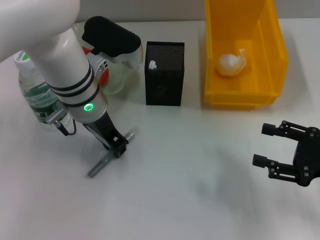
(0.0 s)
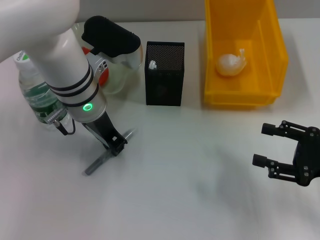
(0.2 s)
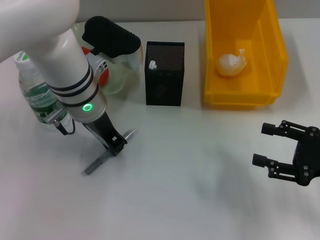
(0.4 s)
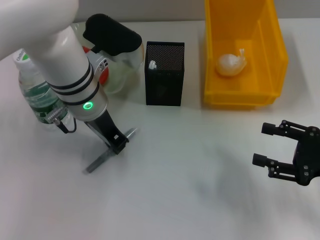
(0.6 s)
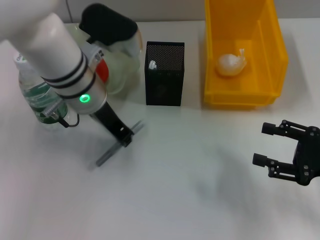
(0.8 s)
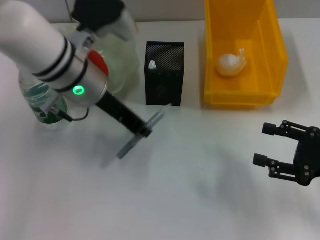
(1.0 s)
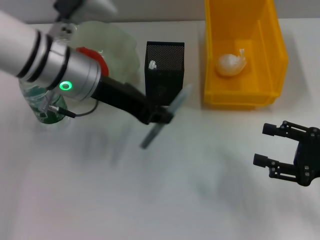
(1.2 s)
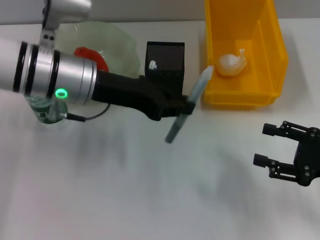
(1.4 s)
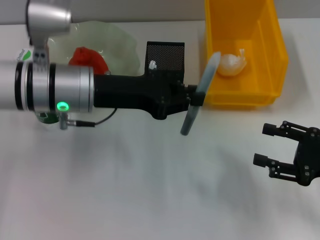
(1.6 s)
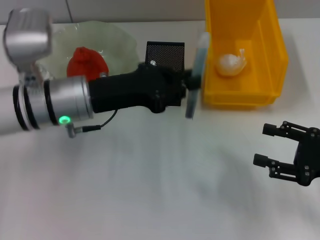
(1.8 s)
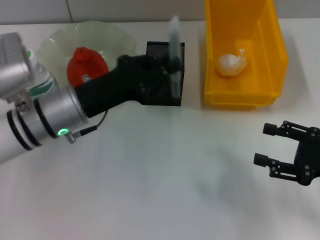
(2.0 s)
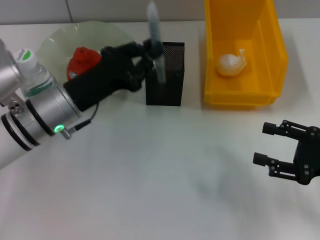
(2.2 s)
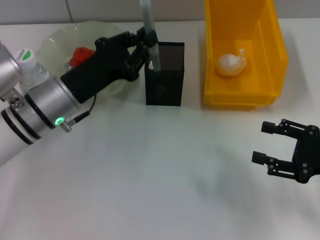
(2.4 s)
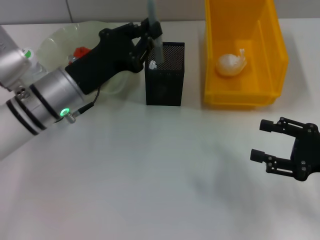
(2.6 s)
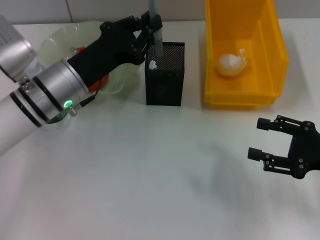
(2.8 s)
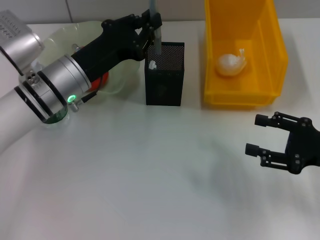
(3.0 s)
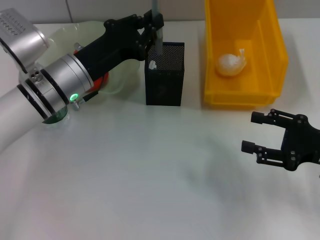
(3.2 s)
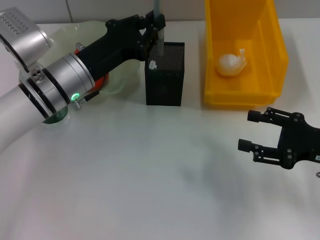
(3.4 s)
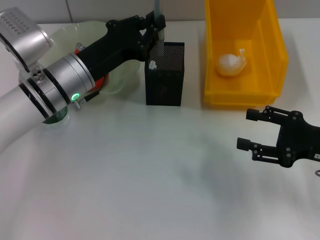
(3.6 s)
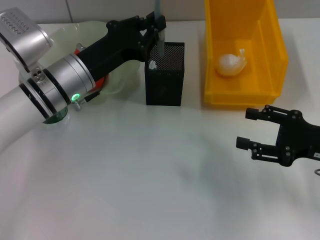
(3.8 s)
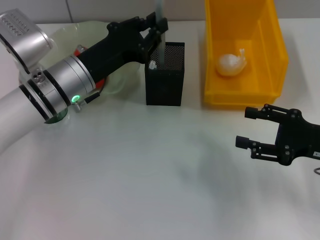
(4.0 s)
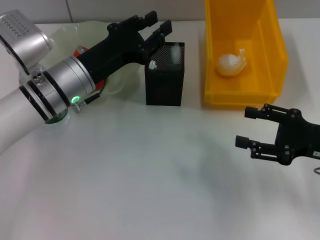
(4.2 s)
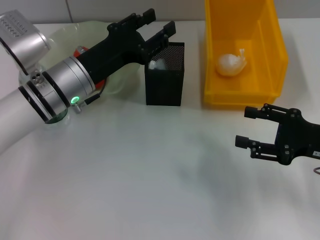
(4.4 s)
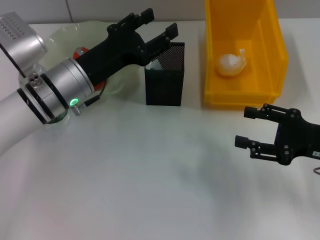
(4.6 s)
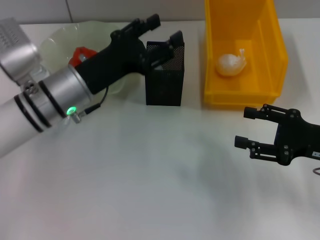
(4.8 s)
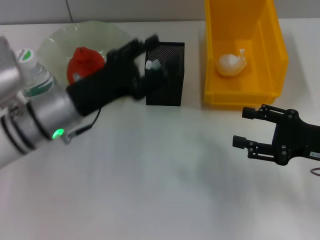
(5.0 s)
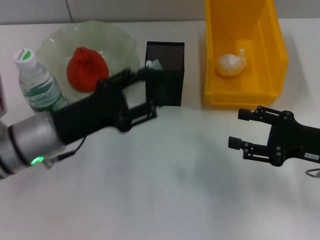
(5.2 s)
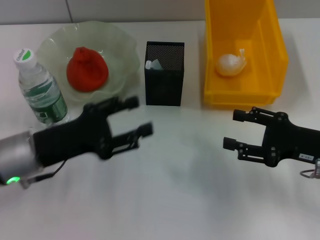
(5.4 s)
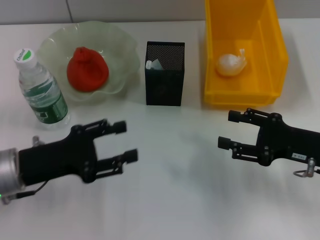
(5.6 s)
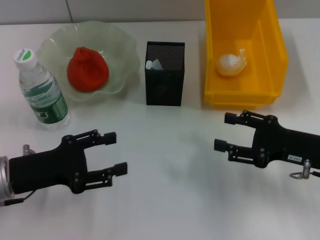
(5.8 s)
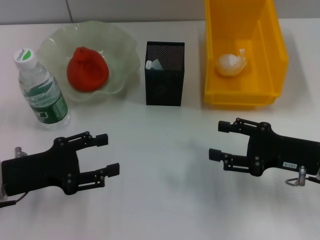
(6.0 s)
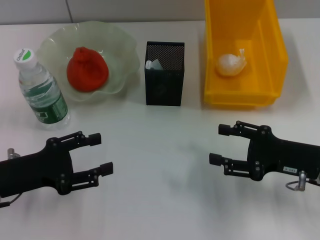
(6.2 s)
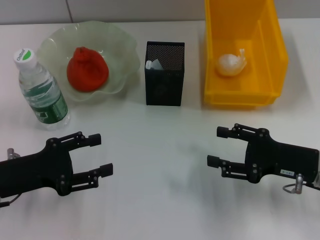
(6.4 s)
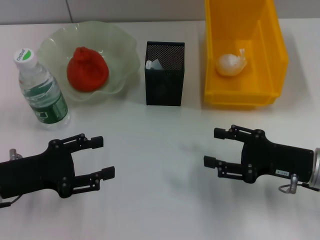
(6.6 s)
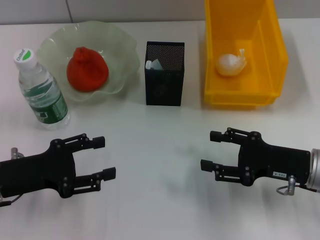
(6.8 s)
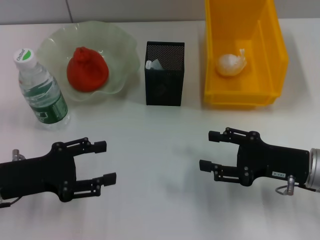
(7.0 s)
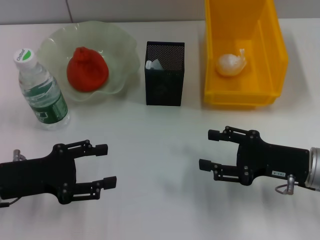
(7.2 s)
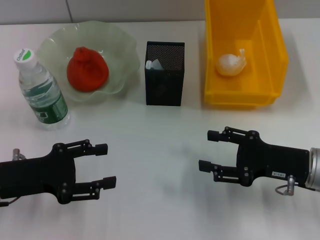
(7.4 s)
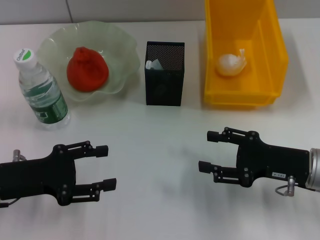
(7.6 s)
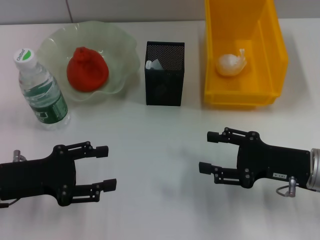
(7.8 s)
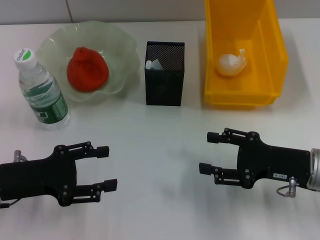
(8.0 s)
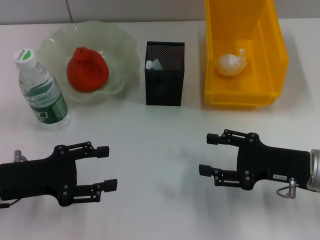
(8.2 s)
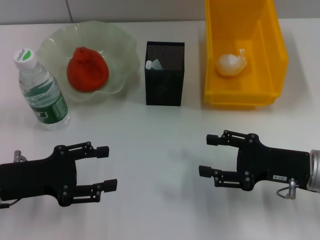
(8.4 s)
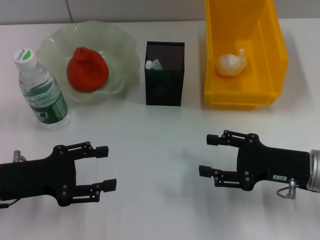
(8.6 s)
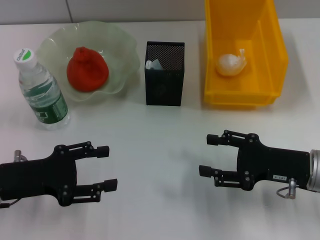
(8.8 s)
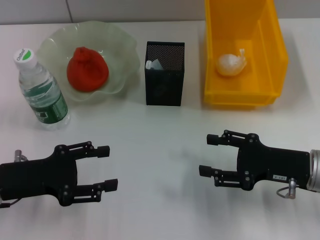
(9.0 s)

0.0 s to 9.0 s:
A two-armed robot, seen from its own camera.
Step, 0.0 to 4.6 s: Place the gray spring-action pen into the pen holder with the left hand.
0.0 to 1.6 s: The left gripper changes place by roughly 5 cm.
1.6 to 3.0 s: The left gripper moves approximately 5 cm.
3.0 to 4.4 s: The left gripper opens up.
4.4 to 6.0 s: The left gripper shifts approximately 15 cm backward and to the left, and opens its fingers.
6.0 to 7.6 s: There are only small adjustments of the grippers.
7.6 to 9.0 s: Neither gripper changes place.

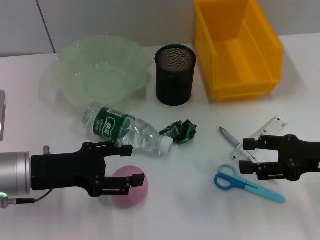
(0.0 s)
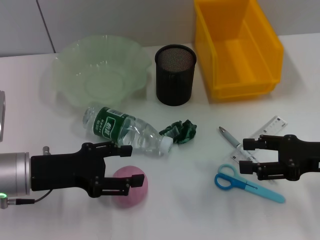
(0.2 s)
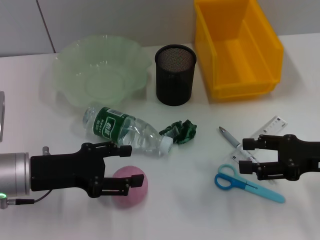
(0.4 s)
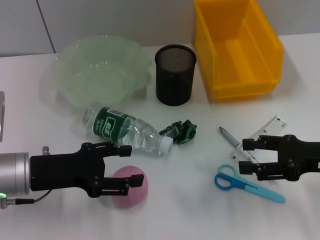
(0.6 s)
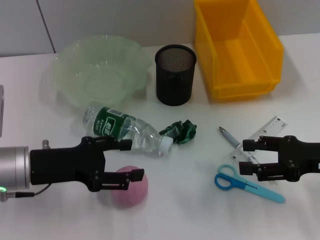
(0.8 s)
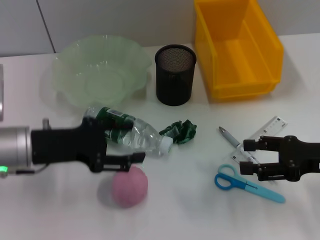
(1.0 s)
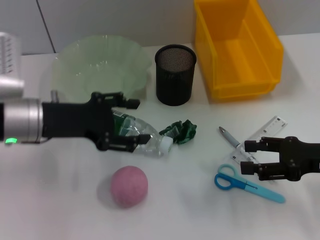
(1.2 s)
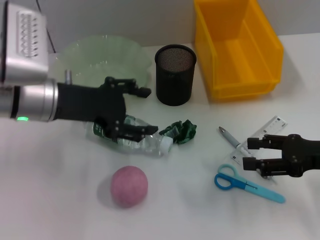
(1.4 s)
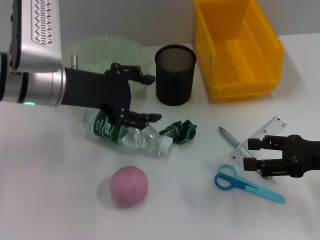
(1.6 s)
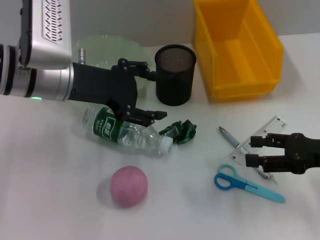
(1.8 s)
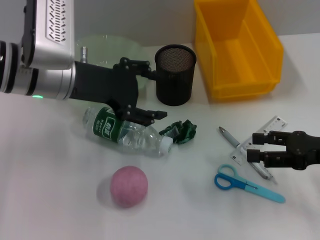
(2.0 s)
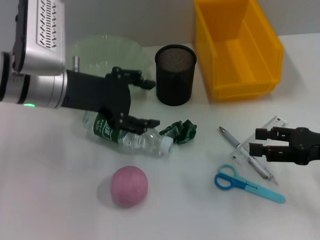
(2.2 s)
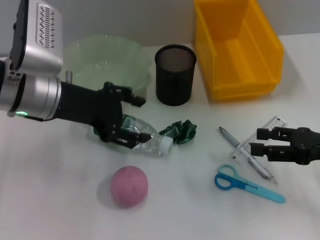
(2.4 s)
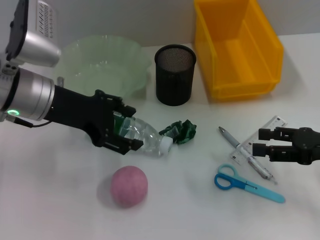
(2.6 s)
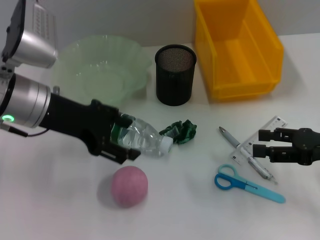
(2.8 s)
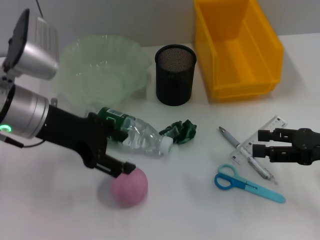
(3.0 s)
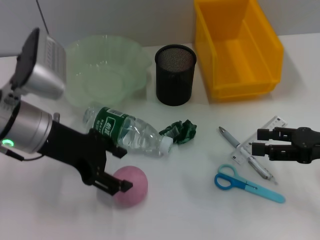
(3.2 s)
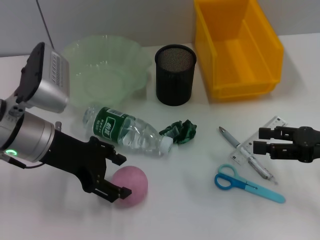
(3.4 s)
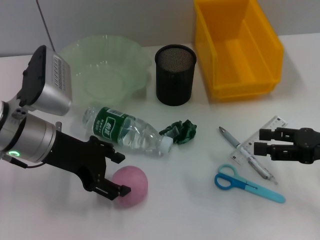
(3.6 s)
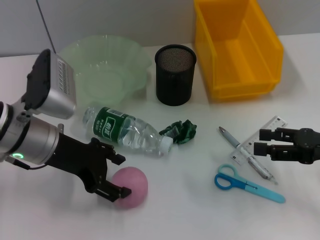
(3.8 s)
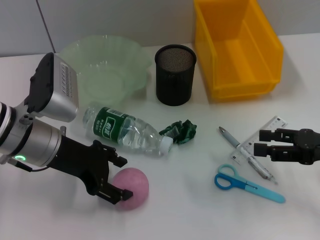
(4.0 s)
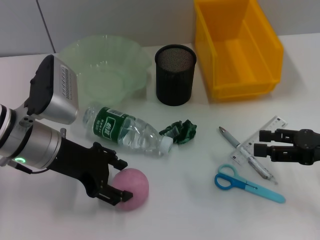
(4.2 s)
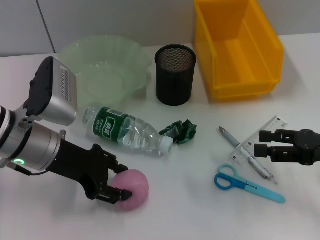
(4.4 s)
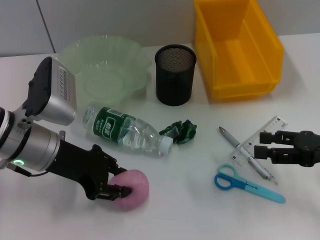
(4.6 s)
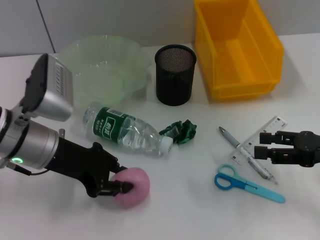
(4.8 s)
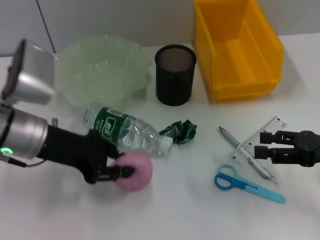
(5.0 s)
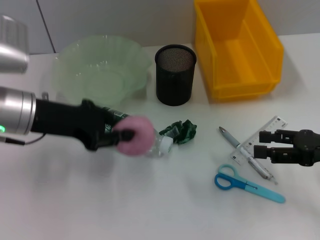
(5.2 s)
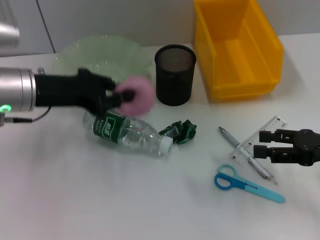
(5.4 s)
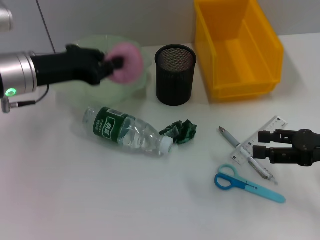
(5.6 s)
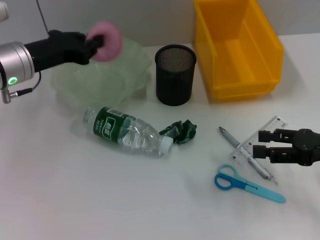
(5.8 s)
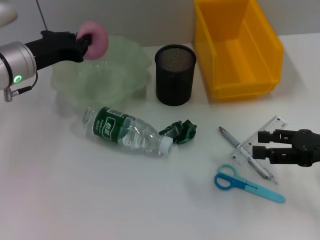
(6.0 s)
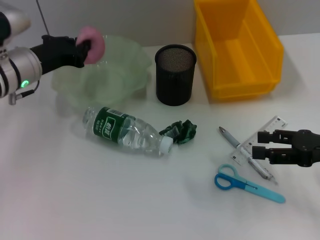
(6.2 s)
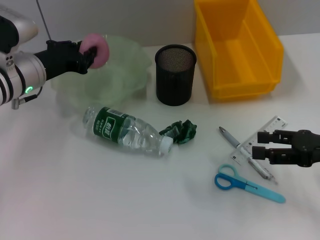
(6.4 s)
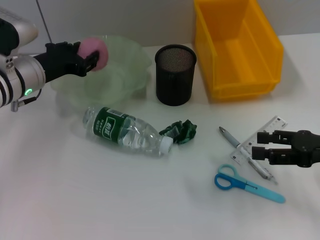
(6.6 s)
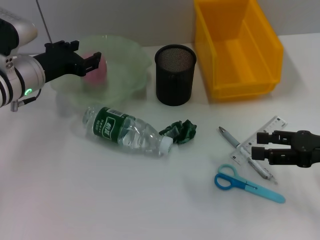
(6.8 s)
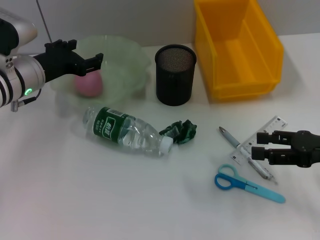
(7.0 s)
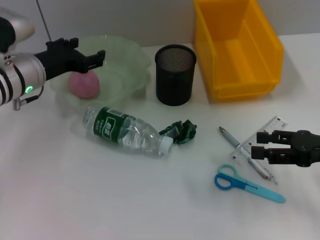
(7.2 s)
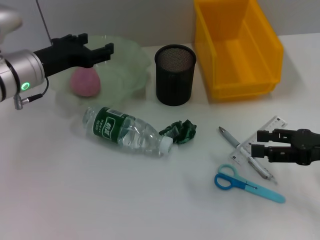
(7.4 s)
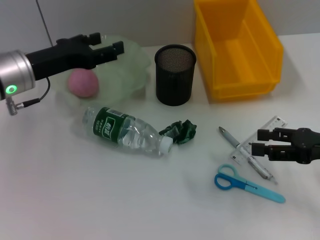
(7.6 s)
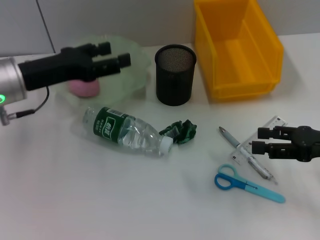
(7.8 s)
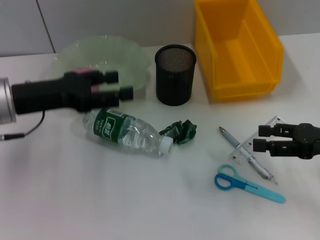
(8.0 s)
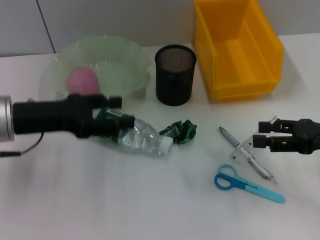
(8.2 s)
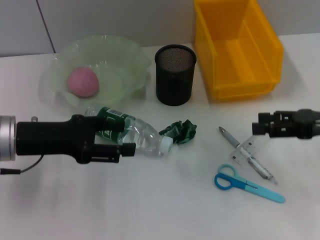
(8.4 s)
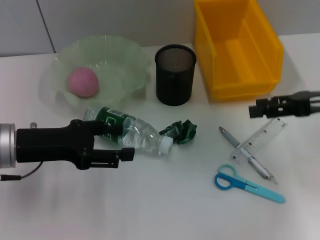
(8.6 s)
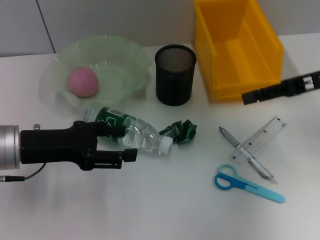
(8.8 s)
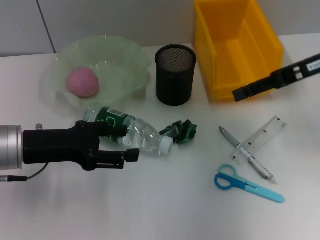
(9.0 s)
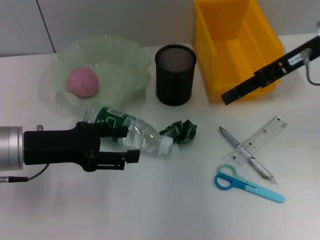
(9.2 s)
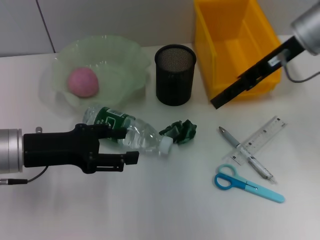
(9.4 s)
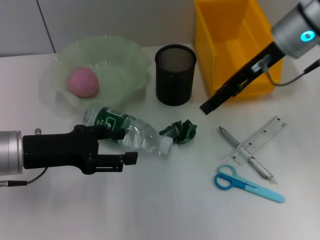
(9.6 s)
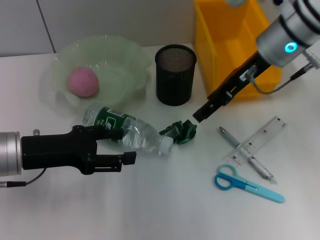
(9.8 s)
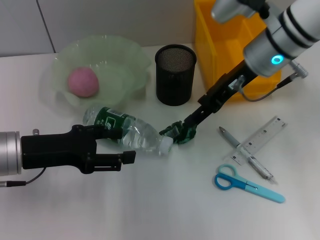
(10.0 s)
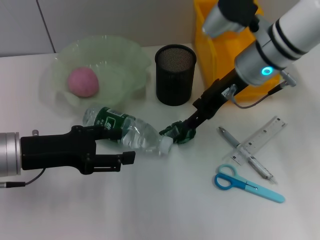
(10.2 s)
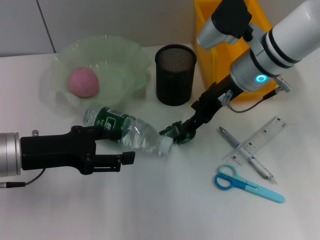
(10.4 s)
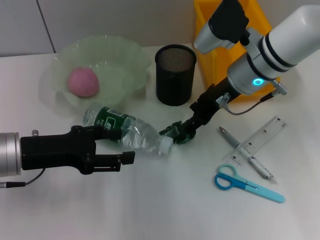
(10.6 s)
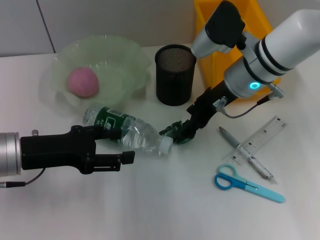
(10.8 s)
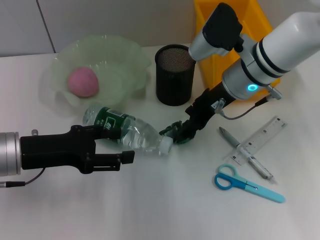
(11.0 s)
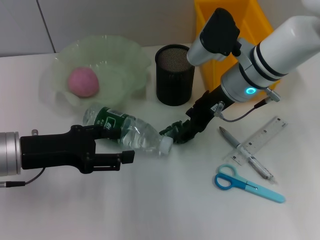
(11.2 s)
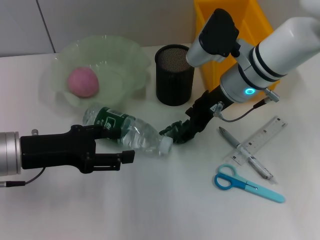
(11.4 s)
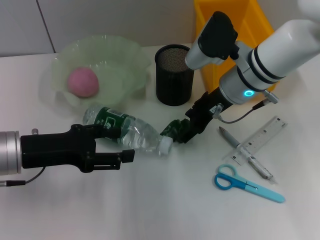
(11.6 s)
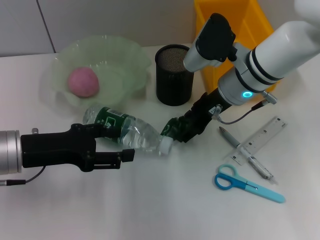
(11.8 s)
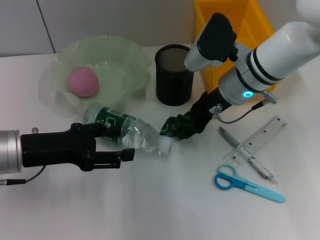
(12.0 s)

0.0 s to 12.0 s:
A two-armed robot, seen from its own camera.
Step, 0.0 to 4.6 s: Grab the peach with the left hand.
Step, 4.8 to 6.8 s: Place the peach into the fruit bowl with the left hand.
0.0 to 1.6 s: The left gripper moves upward, forward and to the right, about 15 cm.
3.0 to 4.4 s: The grippers stay close to where they were, moving slightly.
4.4 to 6.0 s: The left gripper is displaced forward by roughly 10 cm, and closes.
6.0 to 7.6 s: The left gripper opens up.
7.6 to 9.0 s: The right gripper heads forward and upward, covering roughly 15 cm. Meanwhile the left gripper travels backward by approximately 10 cm.
9.0 to 10.4 s: The right gripper moves to the left, roughly 15 cm.
10.4 to 12.0 s: The grippers make only small movements.

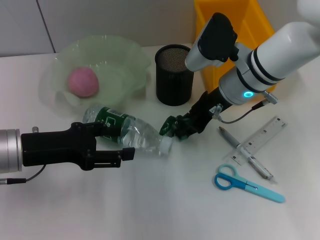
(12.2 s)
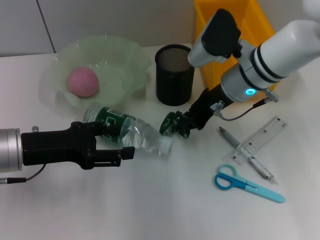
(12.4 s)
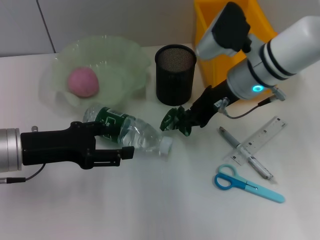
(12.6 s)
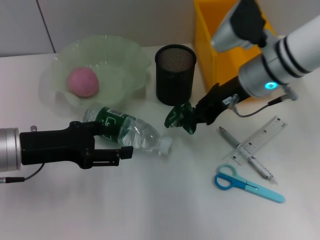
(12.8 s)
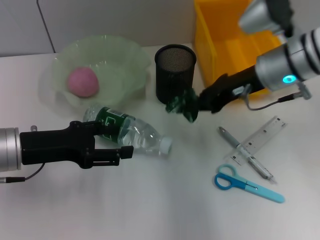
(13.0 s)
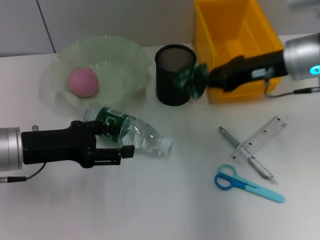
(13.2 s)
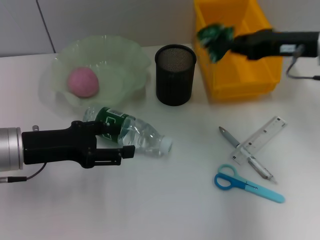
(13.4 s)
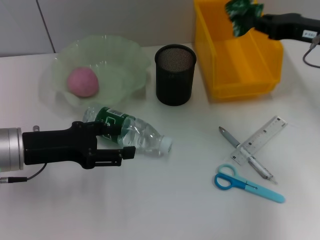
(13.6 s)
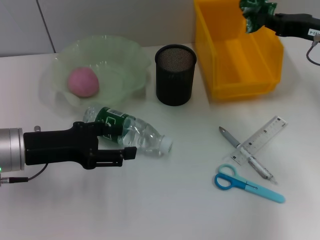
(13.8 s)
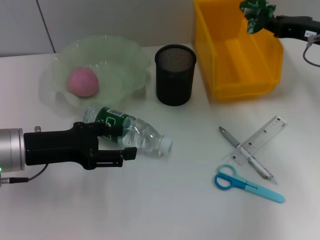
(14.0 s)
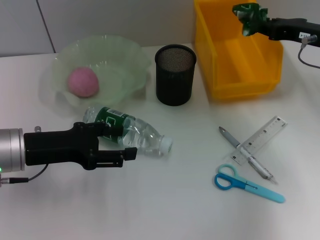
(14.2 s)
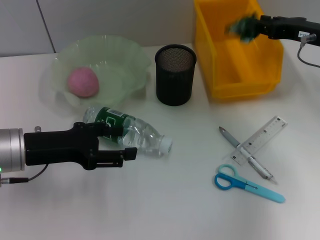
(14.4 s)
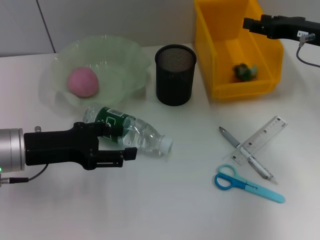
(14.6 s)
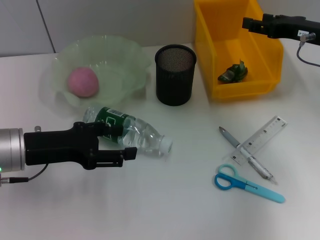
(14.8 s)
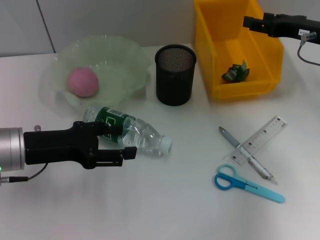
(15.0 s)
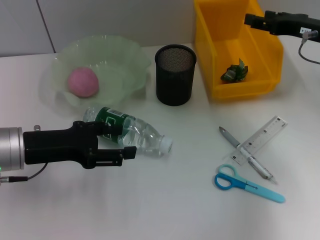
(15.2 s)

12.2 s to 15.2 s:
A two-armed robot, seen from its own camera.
Step, 12.4 to 14.6 s: Place the plastic into the trash can with the right hand.
12.2 to 13.8 s: The right gripper shifts roughly 15 cm to the right, and closes.
13.8 to 15.2 s: The right gripper opens up.
